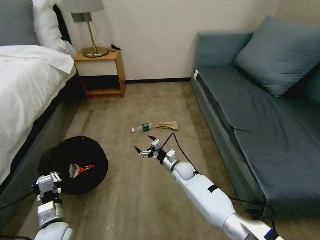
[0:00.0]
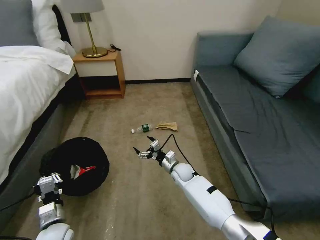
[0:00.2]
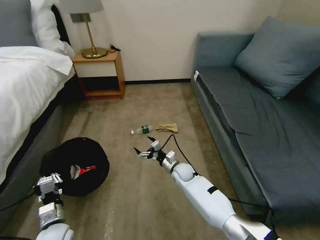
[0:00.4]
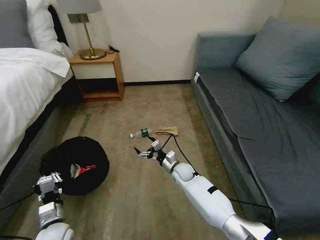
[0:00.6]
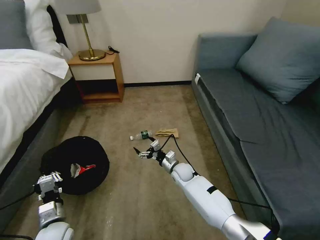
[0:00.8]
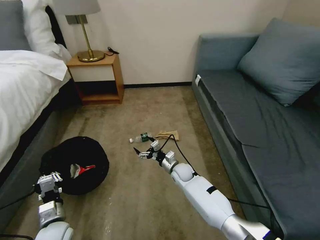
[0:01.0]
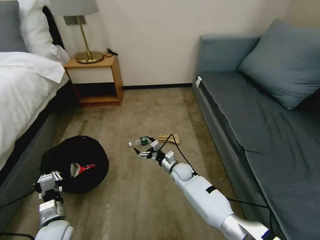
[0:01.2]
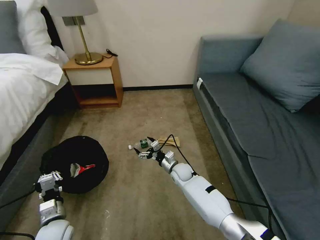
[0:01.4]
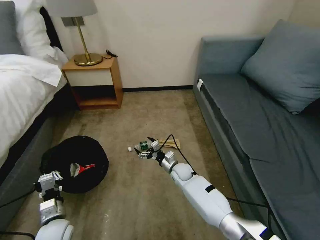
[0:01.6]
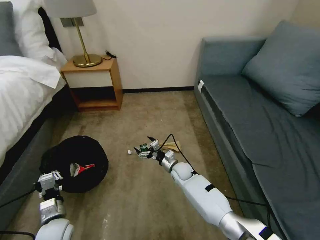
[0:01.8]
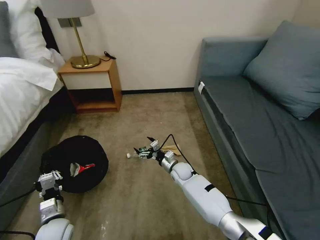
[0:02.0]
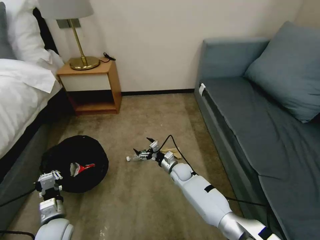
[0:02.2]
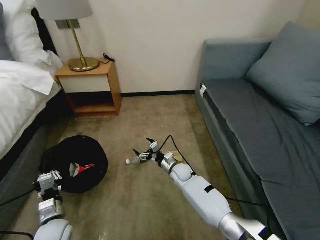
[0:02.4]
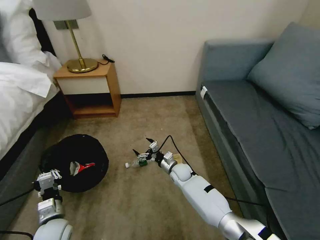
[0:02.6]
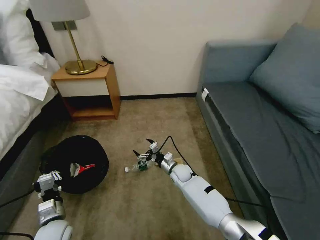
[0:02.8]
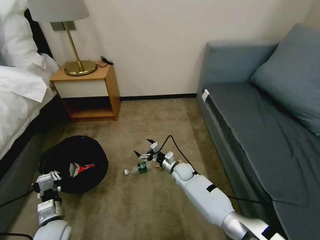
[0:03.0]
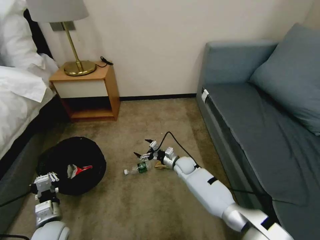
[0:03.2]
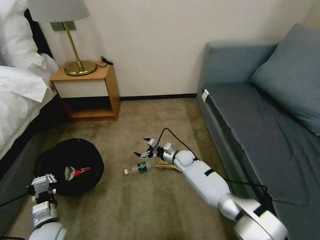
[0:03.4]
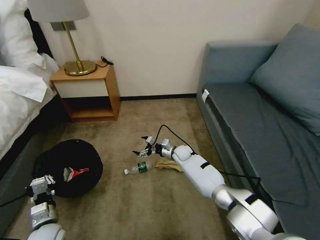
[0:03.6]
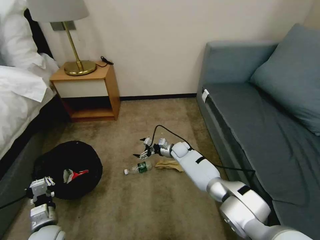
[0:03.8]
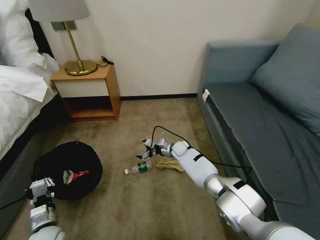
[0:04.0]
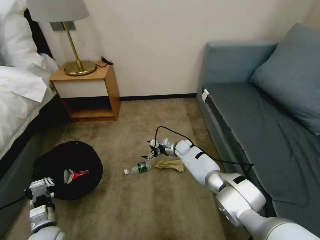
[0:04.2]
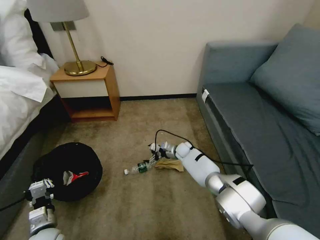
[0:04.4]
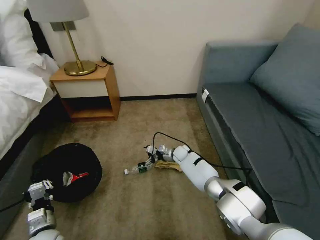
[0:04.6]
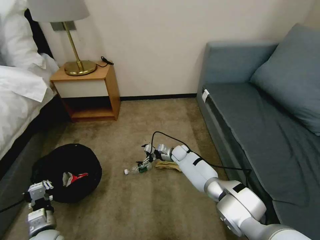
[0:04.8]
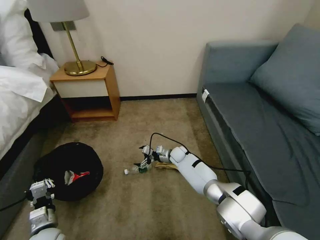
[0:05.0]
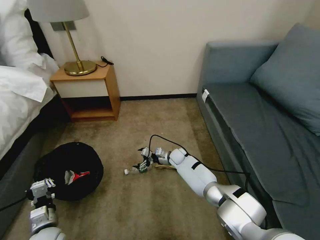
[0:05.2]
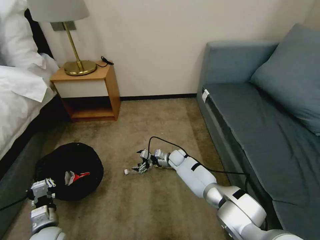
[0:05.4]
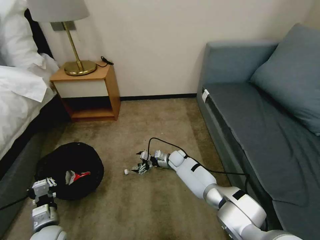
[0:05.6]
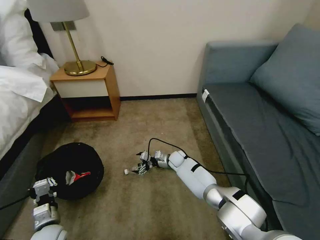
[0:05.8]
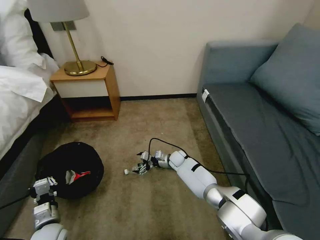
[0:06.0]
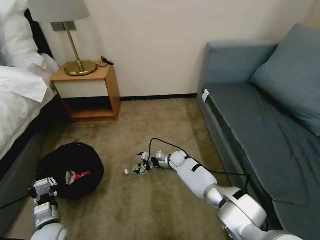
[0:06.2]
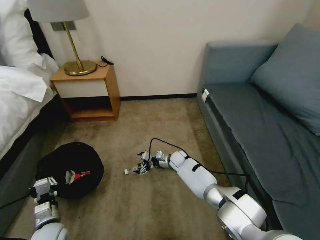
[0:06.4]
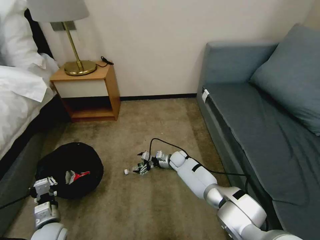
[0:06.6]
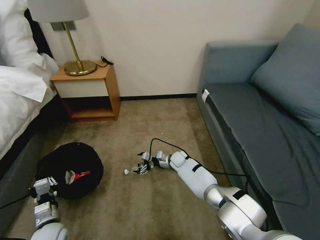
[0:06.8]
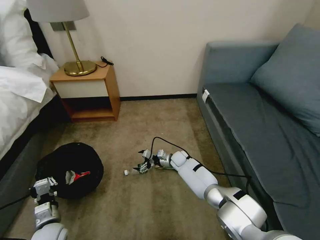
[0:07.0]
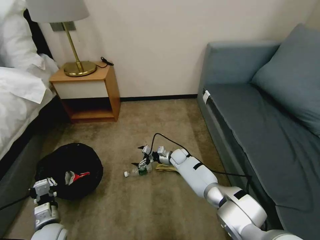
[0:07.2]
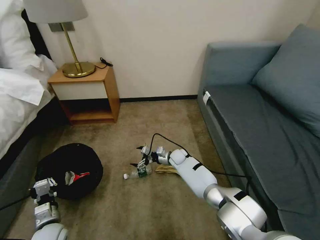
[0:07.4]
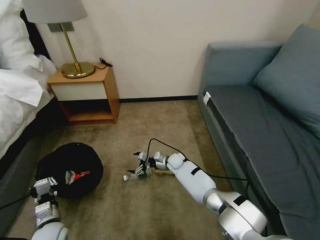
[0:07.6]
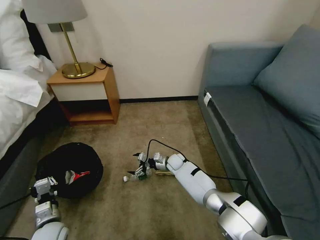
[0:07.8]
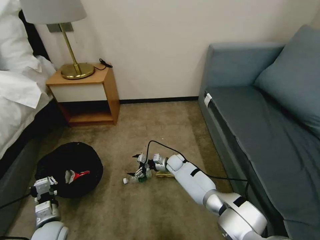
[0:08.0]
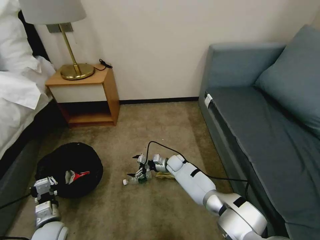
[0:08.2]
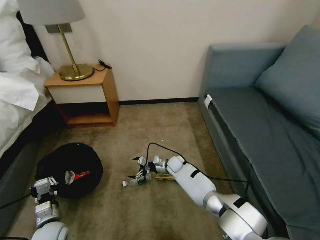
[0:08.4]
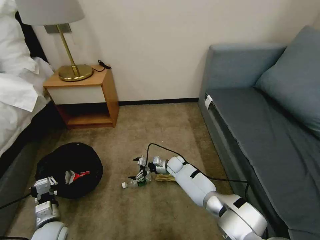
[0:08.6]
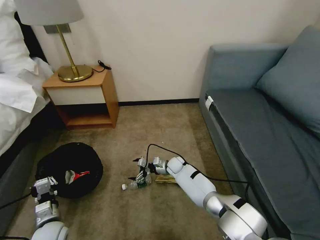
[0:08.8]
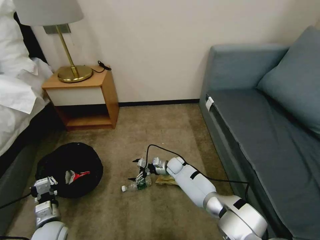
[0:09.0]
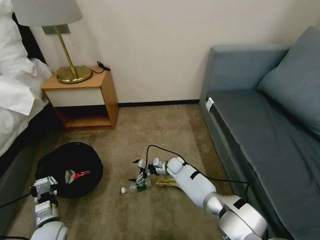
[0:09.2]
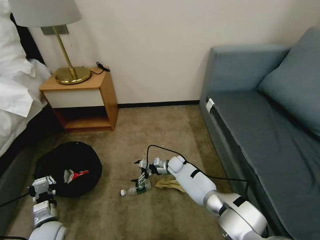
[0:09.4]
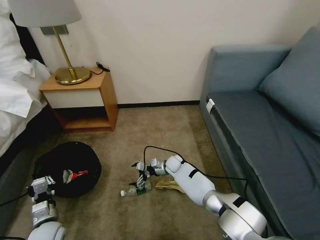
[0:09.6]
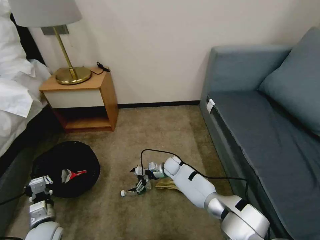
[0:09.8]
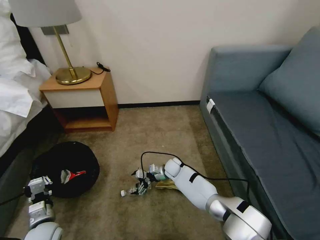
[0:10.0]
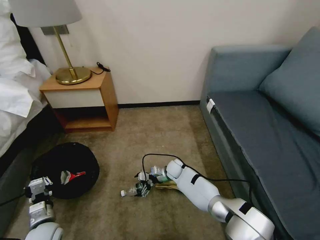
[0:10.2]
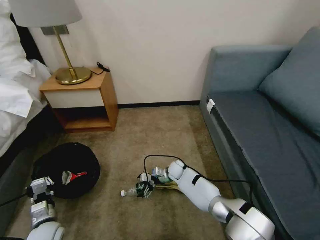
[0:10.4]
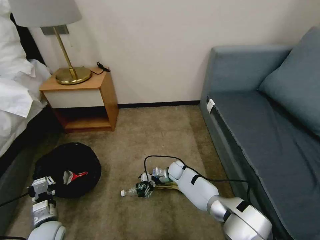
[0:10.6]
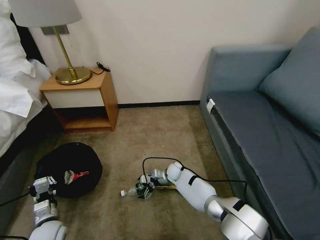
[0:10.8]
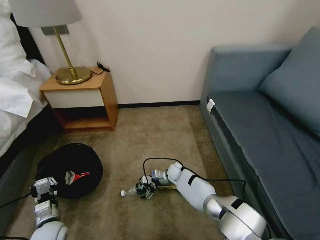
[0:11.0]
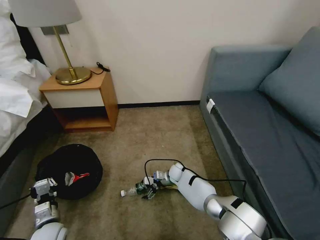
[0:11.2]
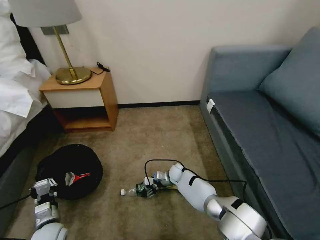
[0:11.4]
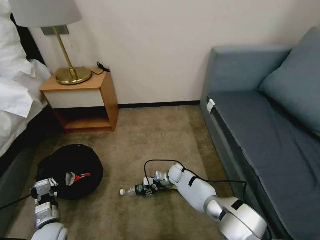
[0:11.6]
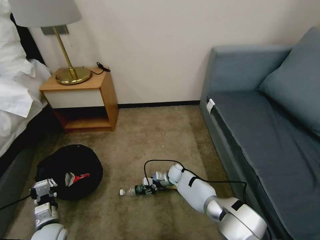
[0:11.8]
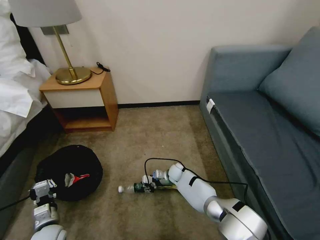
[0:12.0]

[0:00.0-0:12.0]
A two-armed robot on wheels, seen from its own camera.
Task of the whole recording: Pick up the trash bin, then pick up the garbage on the floor and place it into the trash bin.
0:03.0 to 0:04.4: The right gripper travels forward by some 10 cm.
0:04.4 to 0:06.0: The right gripper changes place by roughly 5 cm.
0:06.0 to 0:10.4: The grippers move only a little.
0:10.4 to 0:12.0: The right gripper closes its fingers.

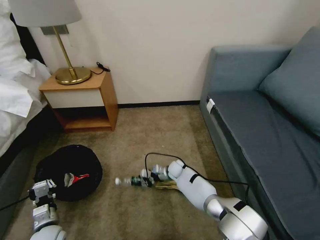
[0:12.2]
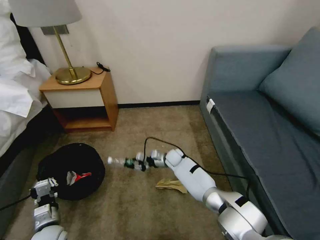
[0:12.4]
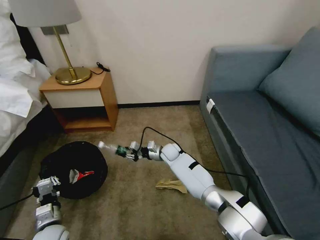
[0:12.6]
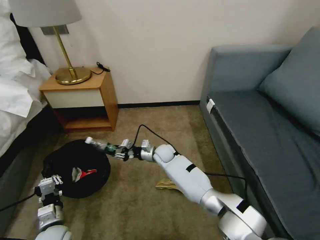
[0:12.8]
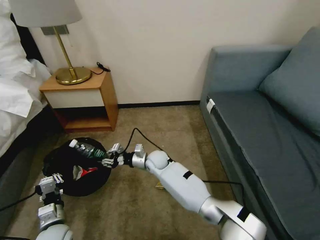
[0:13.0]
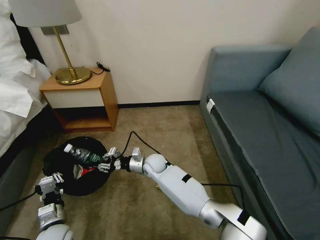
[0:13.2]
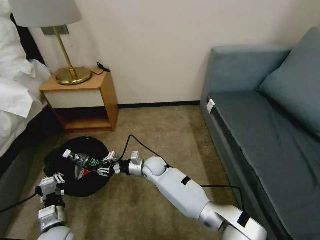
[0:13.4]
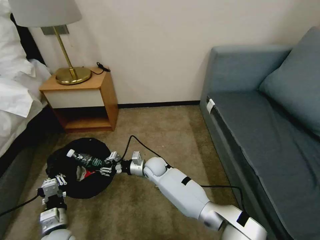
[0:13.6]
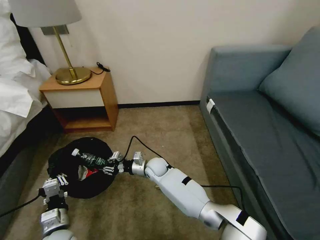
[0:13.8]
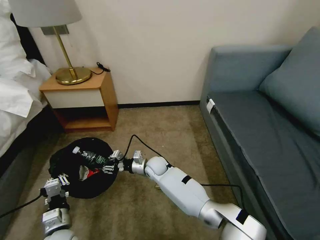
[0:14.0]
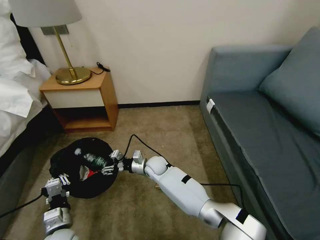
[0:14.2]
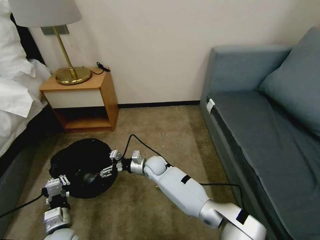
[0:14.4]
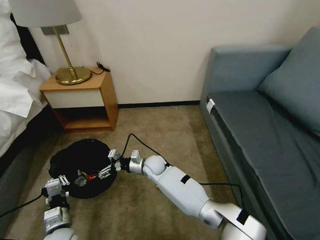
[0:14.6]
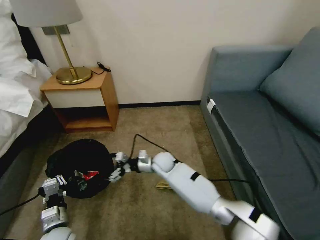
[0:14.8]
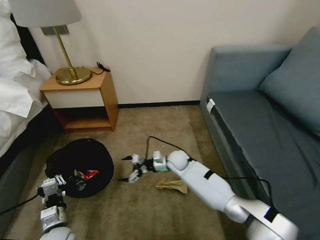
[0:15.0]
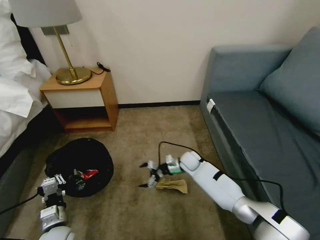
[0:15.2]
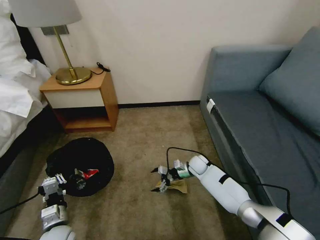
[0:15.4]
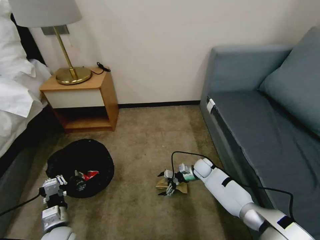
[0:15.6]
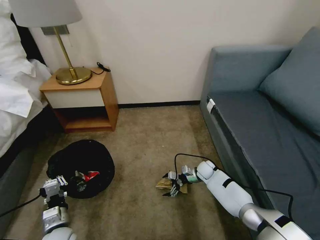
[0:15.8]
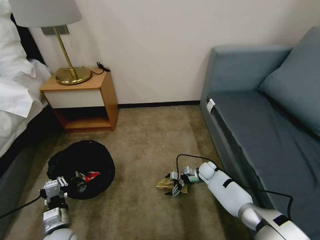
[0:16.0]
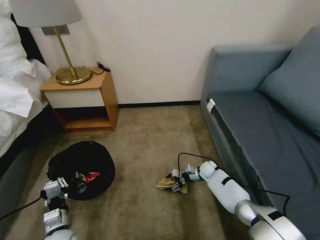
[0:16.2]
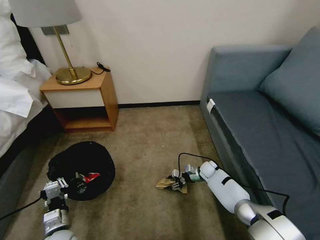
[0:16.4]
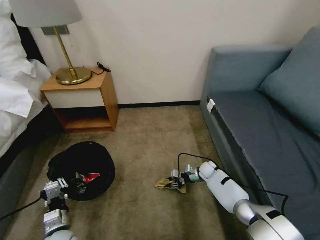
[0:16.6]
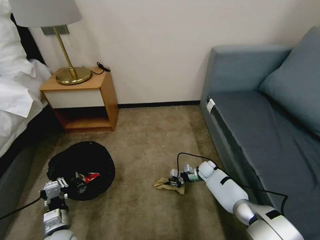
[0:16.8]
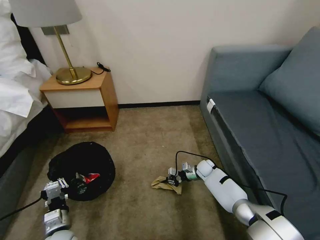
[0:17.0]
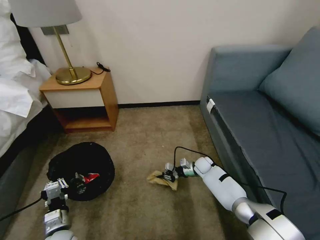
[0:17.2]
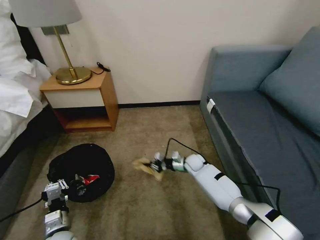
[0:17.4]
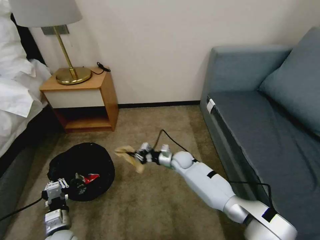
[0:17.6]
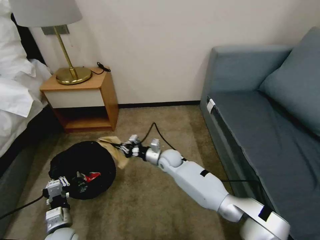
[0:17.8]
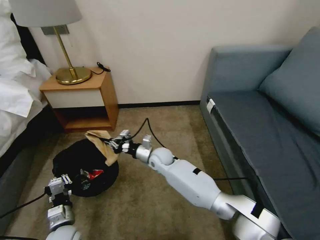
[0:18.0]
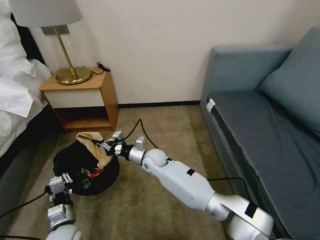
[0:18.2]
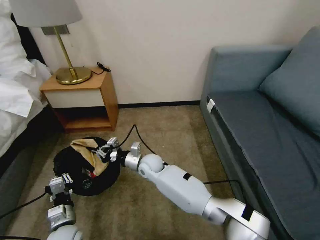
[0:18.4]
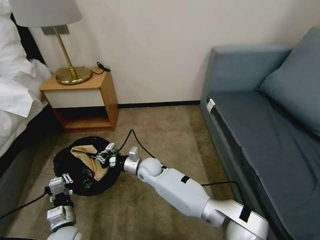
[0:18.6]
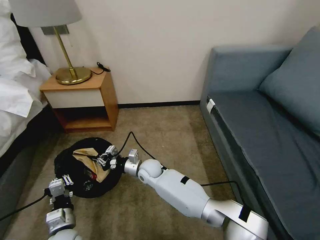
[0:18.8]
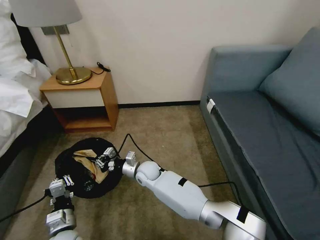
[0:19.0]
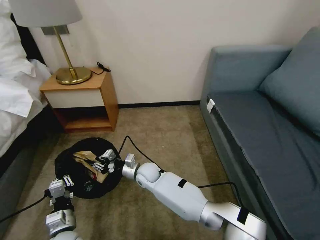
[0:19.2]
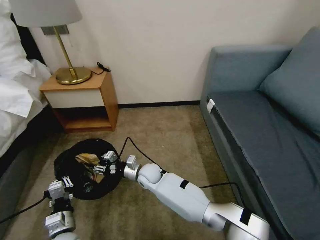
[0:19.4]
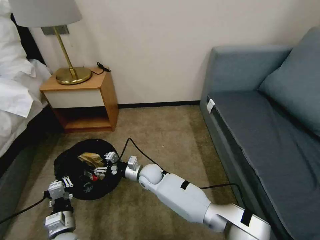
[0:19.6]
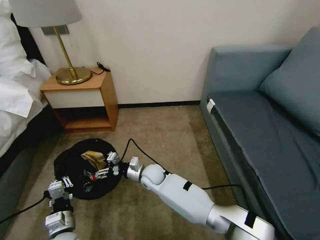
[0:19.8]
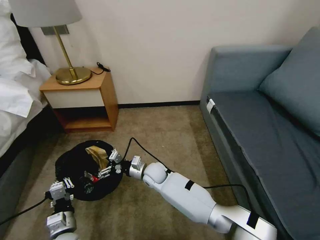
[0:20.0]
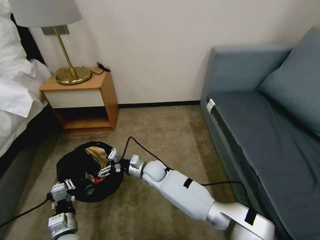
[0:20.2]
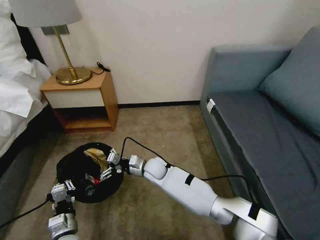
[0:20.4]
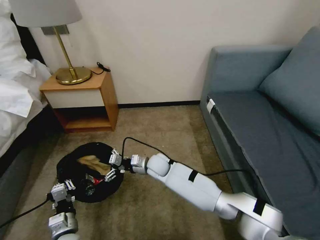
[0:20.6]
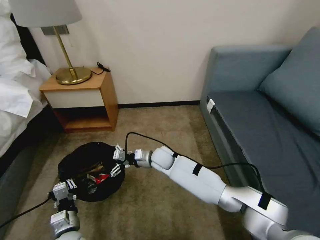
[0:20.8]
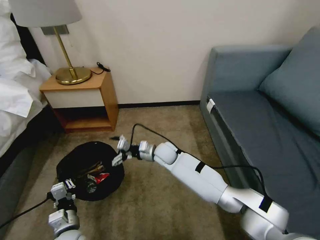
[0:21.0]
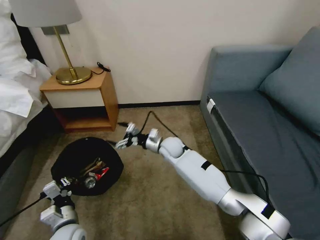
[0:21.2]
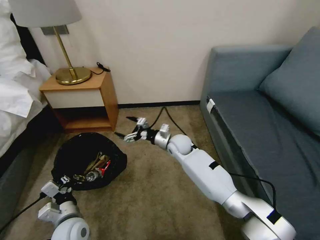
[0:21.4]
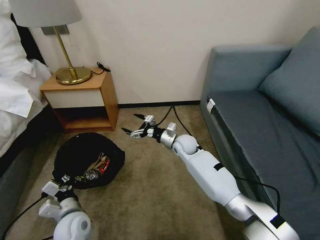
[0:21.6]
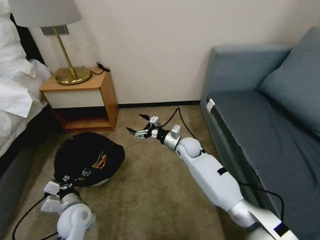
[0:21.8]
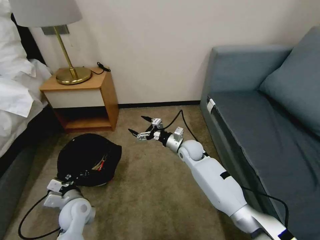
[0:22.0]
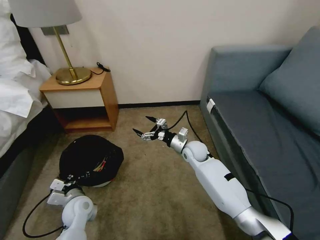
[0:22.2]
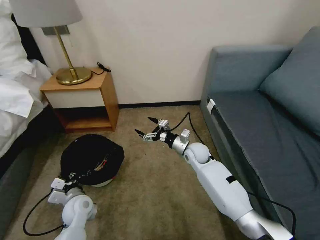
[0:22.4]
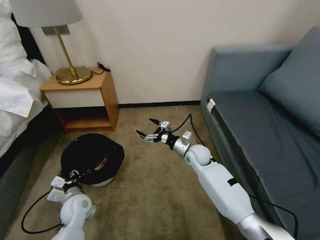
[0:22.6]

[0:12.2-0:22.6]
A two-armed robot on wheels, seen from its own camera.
Task of the whole recording: Pick up the trash bin, then pick up the garbage on the floor and place it into the trash bin.
0:12.2 to 0:13.6: The left gripper is displaced to the right by approximately 5 cm; the right gripper heads to the left and upward, covering some 15 cm.
0:13.6 to 0:15.2: The right gripper shifts approximately 15 cm to the right, and opens.
0:15.2 to 0:16.6: The right gripper travels to the right and downward by some 15 cm, and closes its fingers.
0:16.6 to 0:18.2: The right gripper goes some 30 cm to the left and upward.
0:18.2 to 0:19.6: The right gripper heads downward, covering roughly 5 cm, and opens.
0:19.6 to 0:21.2: The right gripper moves to the right, upward and forward, approximately 15 cm, and opens.
0:21.2 to 0:22.6: The right gripper goes roughly 10 cm to the right; the left gripper heads forward, covering about 10 cm, and opens.
